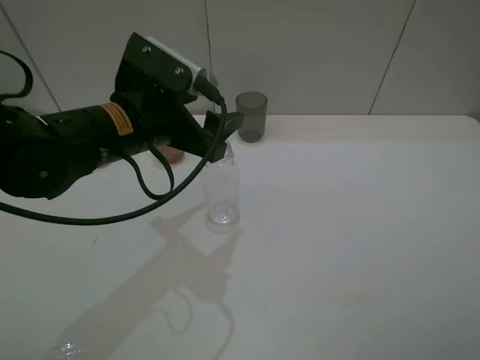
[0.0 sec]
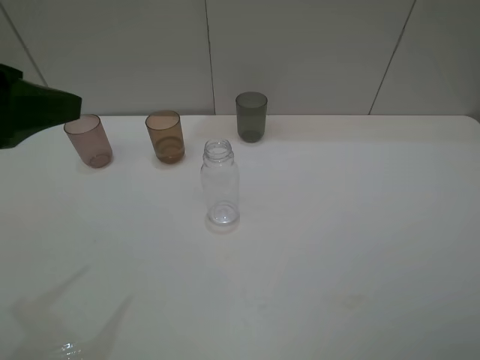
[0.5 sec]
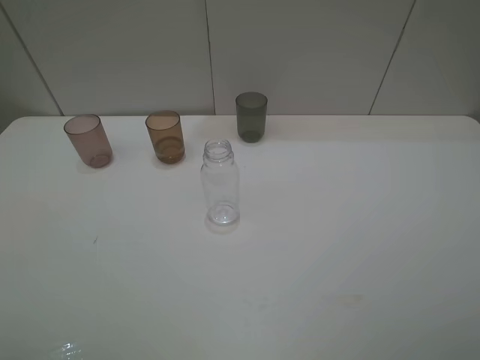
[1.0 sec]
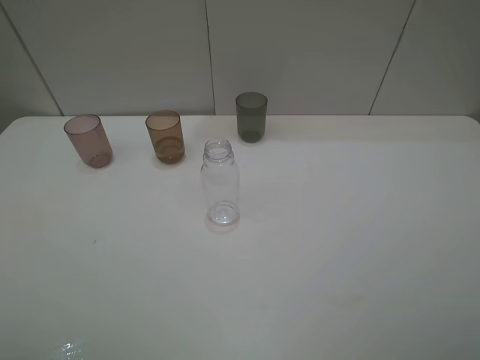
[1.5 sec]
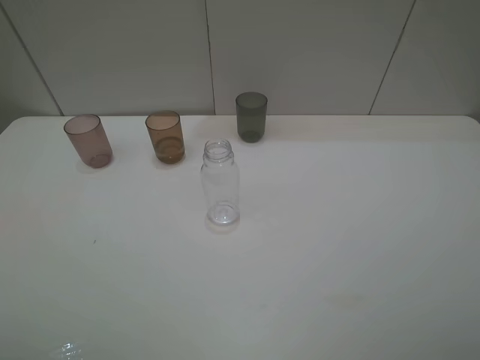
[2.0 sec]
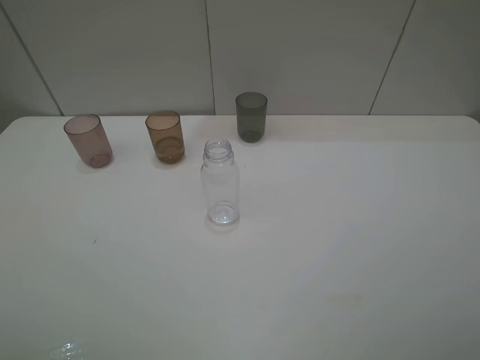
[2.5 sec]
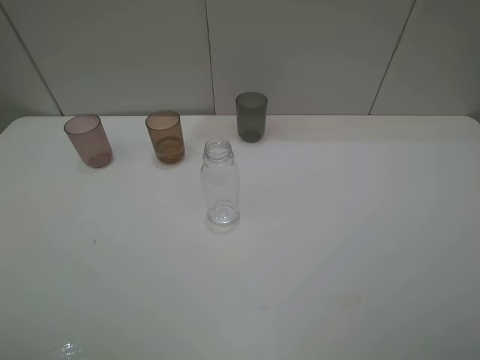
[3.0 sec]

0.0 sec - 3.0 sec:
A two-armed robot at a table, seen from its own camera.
Task of the whole recording: pick up the bottle filled with water and pour water into the middle cup of the three cups.
0.0 sec - 1.5 sec: The left gripper goes roughly 30 cm backward and to the left.

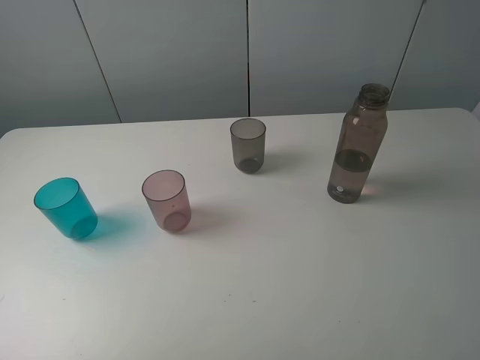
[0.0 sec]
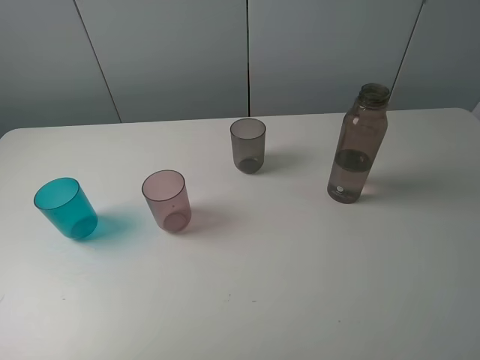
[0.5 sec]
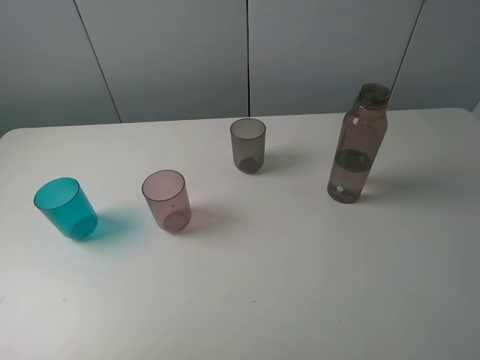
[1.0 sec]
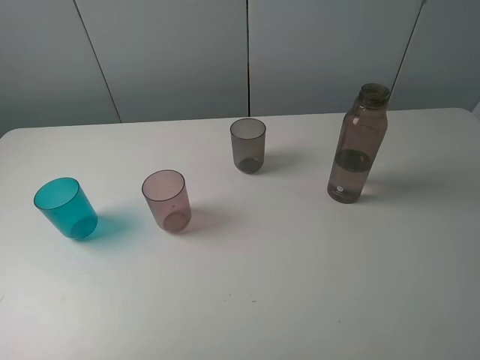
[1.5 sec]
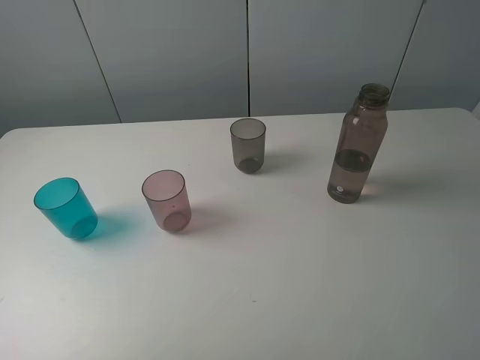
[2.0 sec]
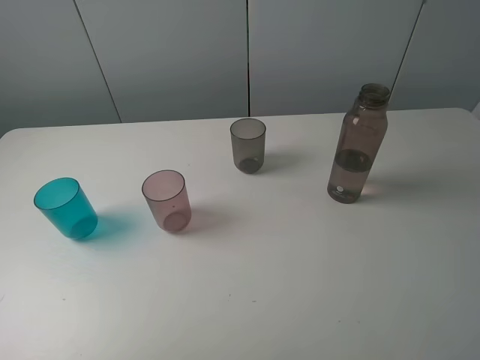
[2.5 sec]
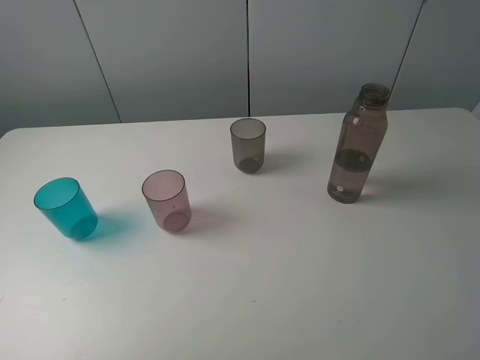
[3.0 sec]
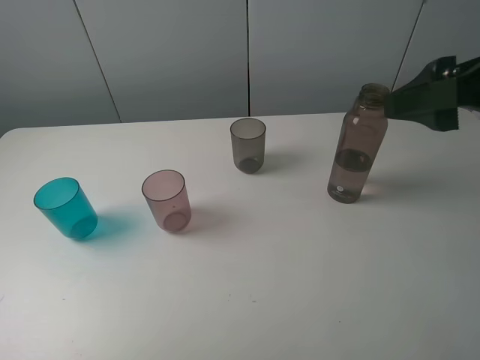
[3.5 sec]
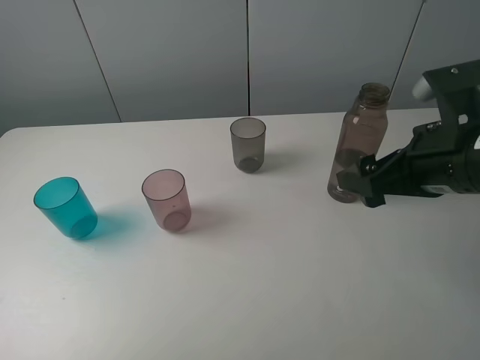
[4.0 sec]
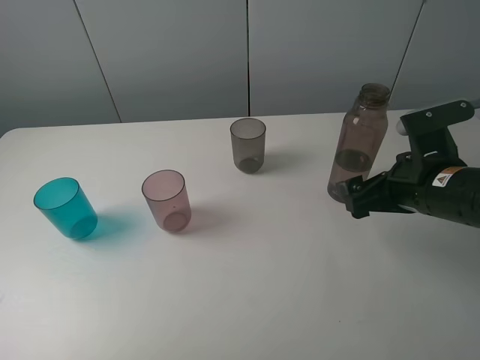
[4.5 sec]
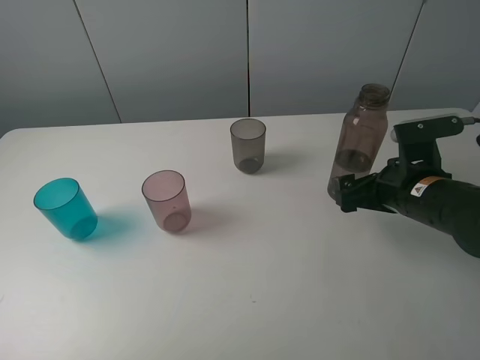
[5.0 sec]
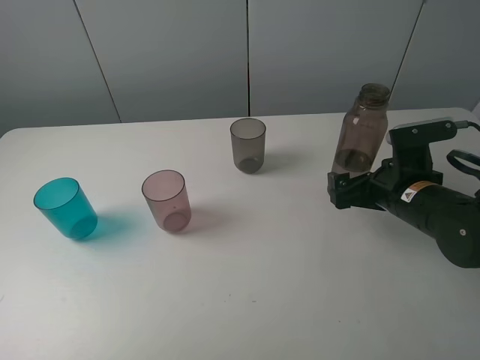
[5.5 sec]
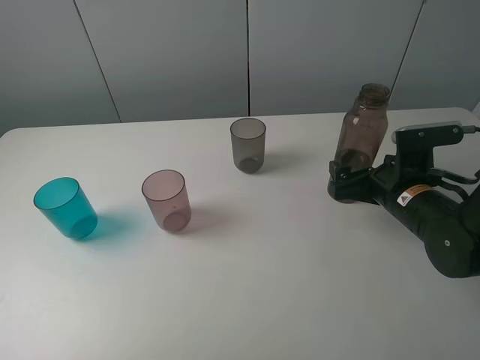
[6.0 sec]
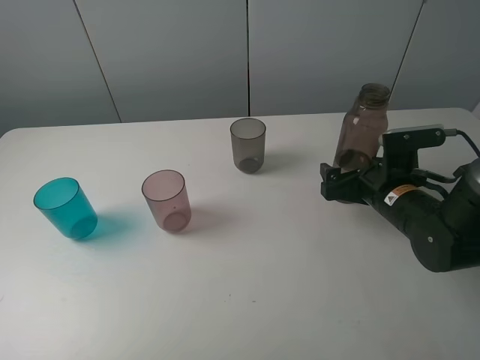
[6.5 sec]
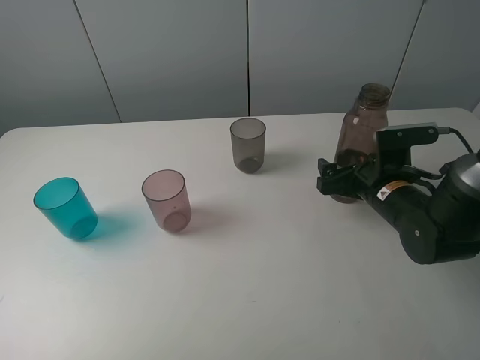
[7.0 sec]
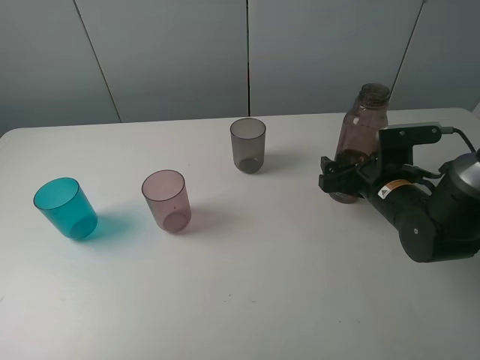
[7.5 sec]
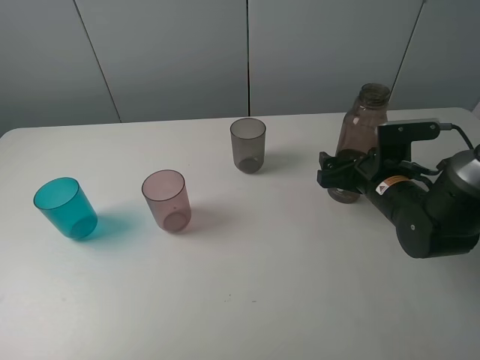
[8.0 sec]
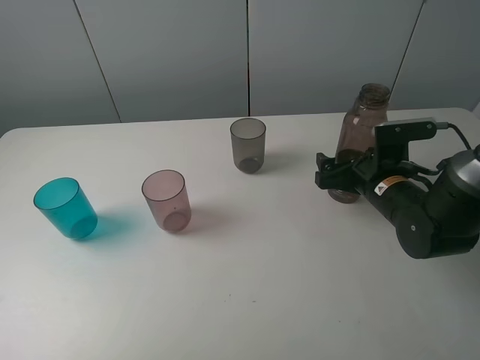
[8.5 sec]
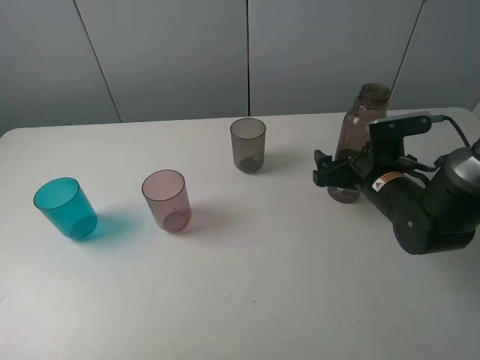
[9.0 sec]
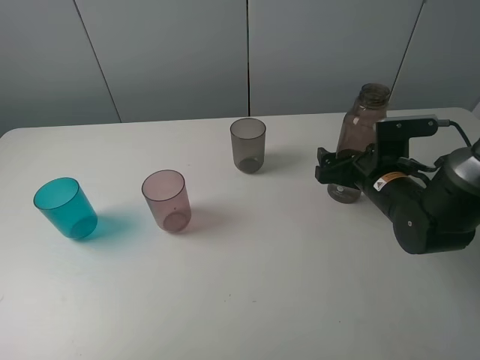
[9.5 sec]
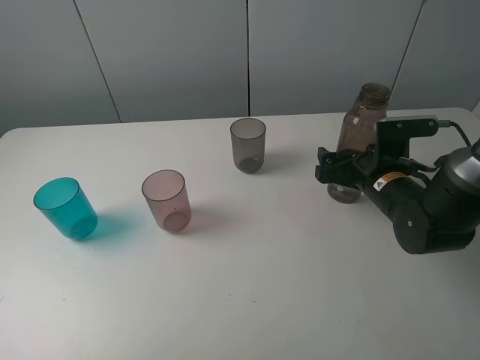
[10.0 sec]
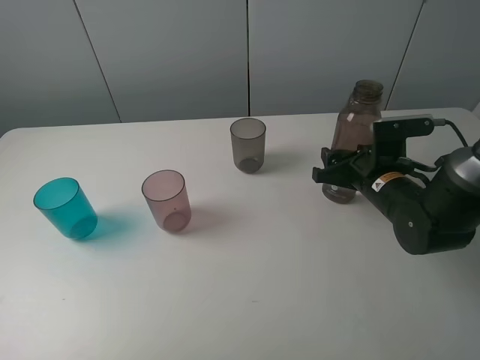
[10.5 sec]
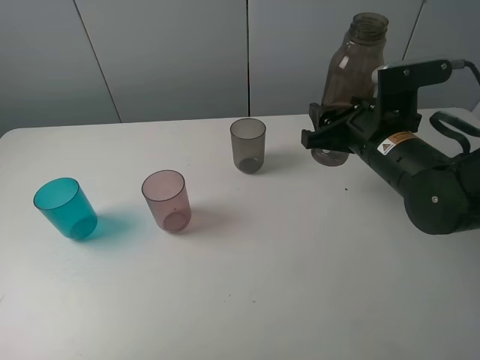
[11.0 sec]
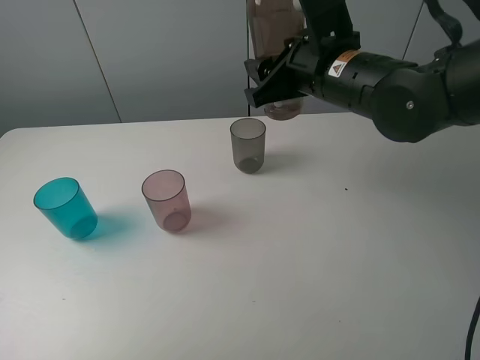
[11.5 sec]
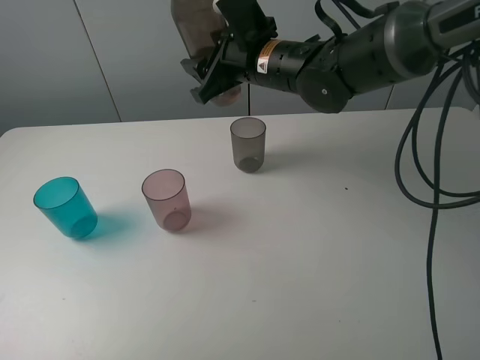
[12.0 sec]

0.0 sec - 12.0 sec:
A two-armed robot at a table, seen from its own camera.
Task of the whole recording: pick up the bottle filled with water and pour water into the middle cup of the three cups.
Step, 0.0 sec - 10.0 sec: Grasp the brown bottle with the right gripper.
0.0 sec - 2.0 sec: Both grippers stay put.
2.0 sec - 4.0 sec: The right gripper heads forward and downward, covering roughly 20 cm.
4.0 sec - 6.0 sec: The right gripper goes roughly 15 cm downward and forward.
6.0 sec - 10.0 sec: There are only small adjustments of the grippers.
10.0 sec - 12.0 sec: The right gripper moves to the left, upward and forward, approximately 25 cm, and closes its fingers.

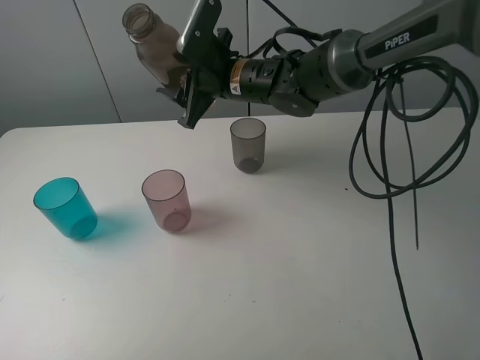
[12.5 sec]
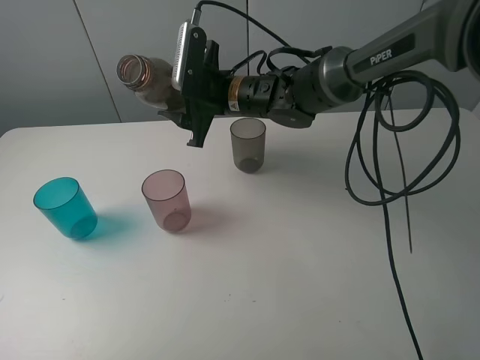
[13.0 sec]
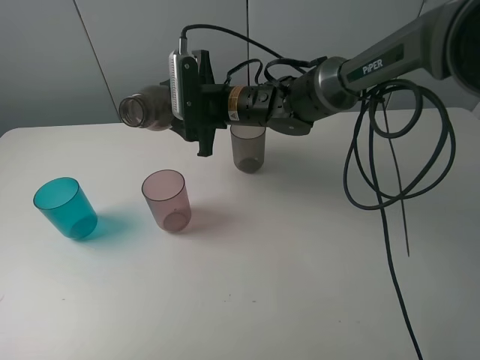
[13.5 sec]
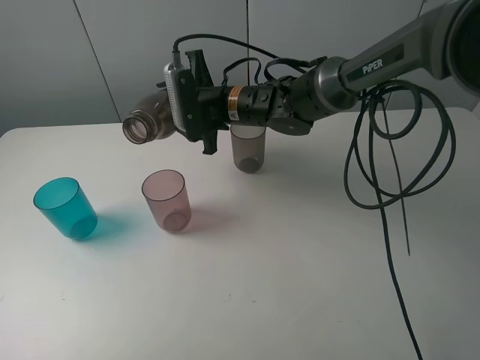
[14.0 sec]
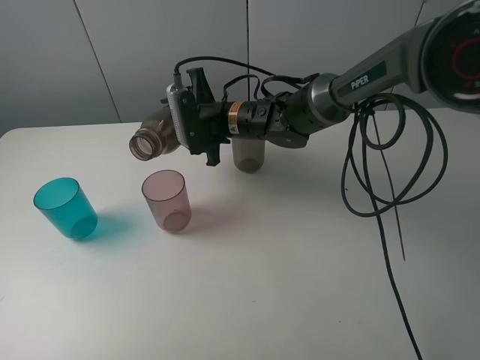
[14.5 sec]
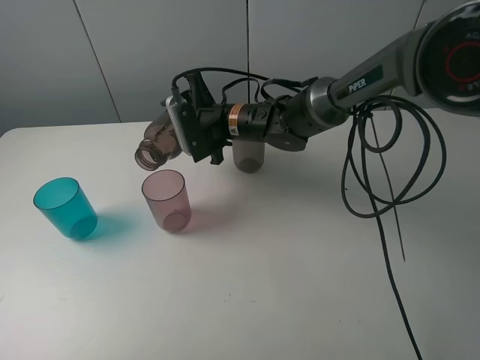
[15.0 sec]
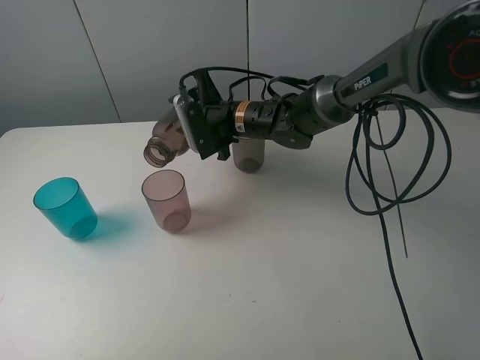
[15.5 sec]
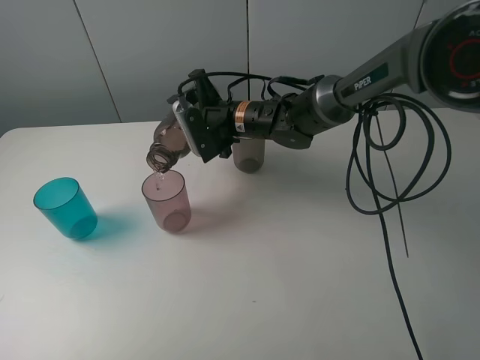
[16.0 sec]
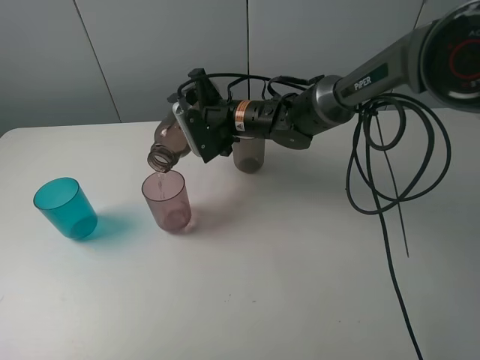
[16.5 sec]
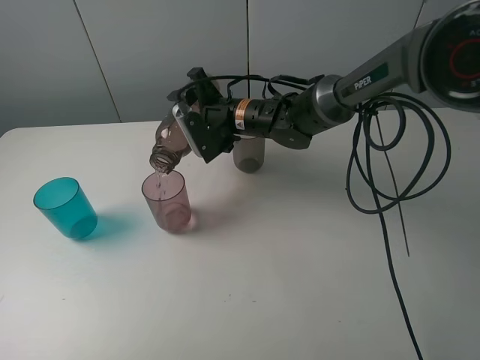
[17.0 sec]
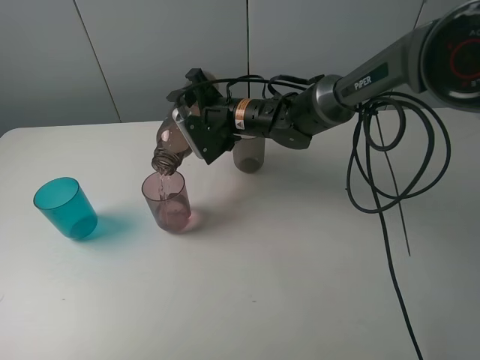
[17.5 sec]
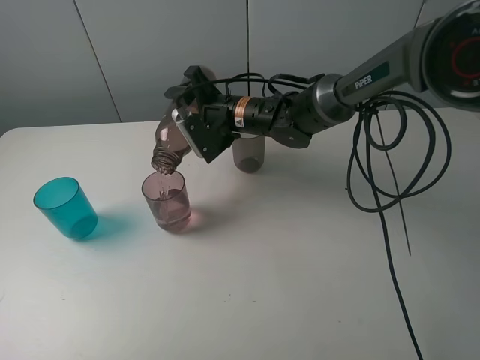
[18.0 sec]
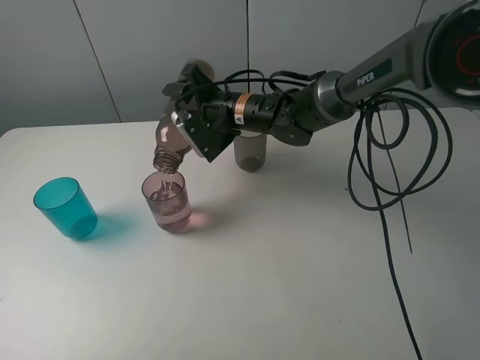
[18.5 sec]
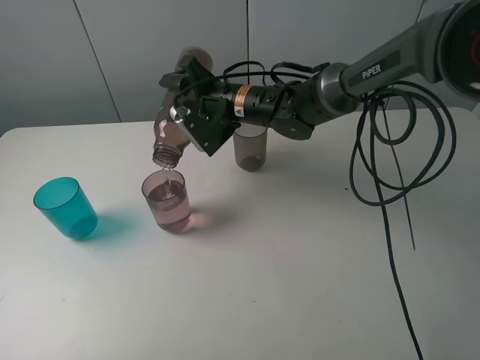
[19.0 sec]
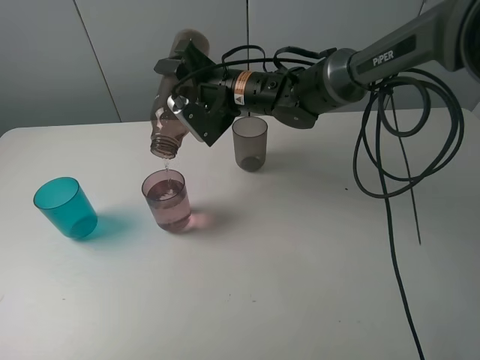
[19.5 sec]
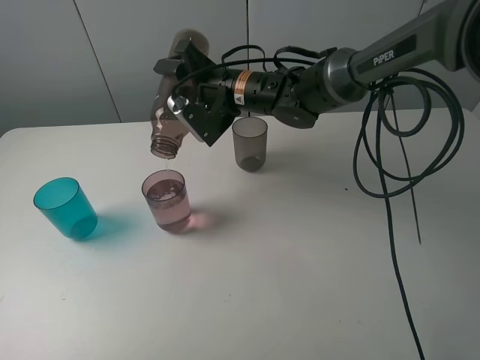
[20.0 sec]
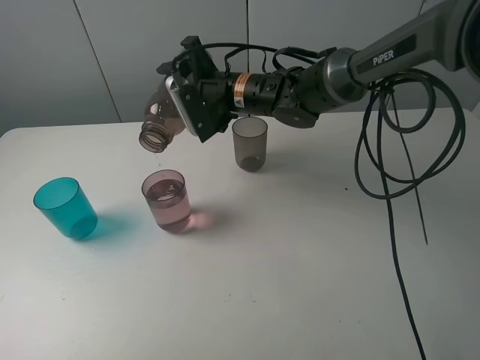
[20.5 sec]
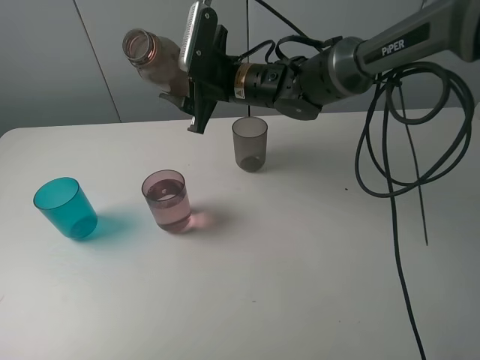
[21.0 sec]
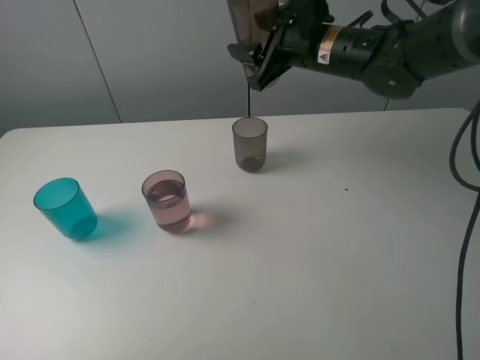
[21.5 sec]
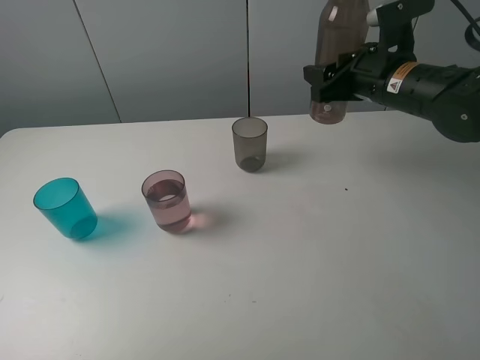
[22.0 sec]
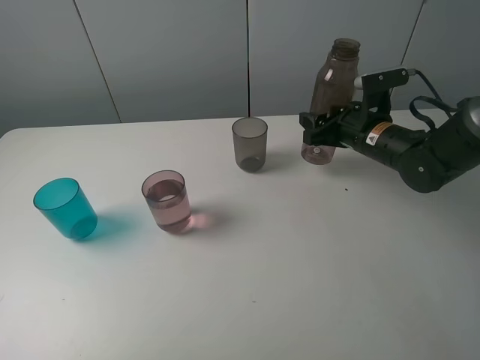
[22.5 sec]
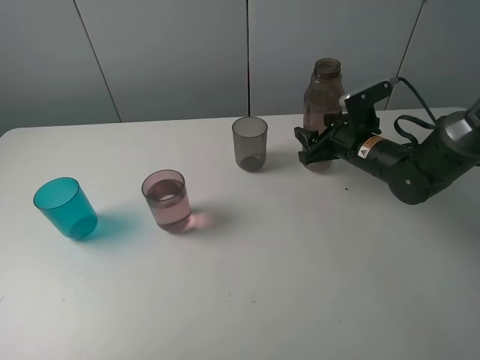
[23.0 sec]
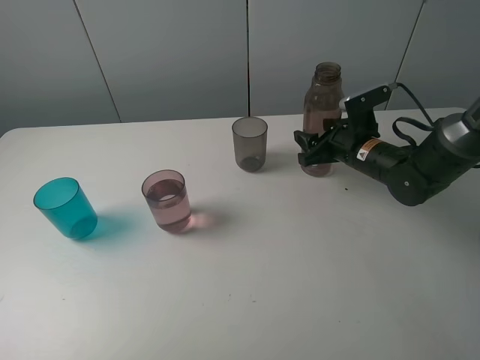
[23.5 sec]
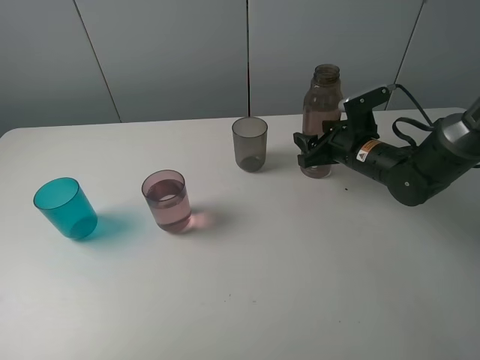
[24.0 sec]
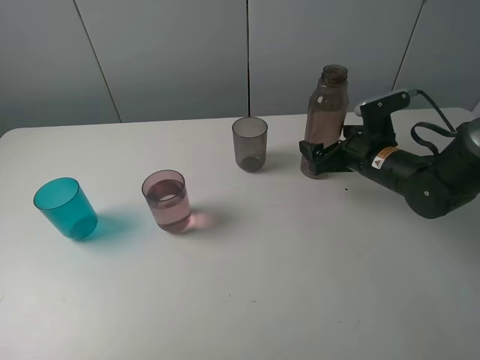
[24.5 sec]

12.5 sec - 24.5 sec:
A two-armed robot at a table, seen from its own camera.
Task of the whole recording: pick up the bottle filled with water and pour water into the middle cup of the three cups.
Step, 12.5 sec - 15.5 sec: Pour water from transparent bottle to red cup with the right gripper.
12.5 sec - 14.5 sec: The right gripper moves downward, roughly 5 cm.
14.5 sec - 16.5 sec: The grippers stay close to where they were, moving slightly.
16.5 sec - 18.5 sec: The grippers move only a little.
18.5 sec - 20.5 sec: The grippers move only a little.
20.5 sec - 22.5 sec: The right gripper shifts some 20 cm to the right.
22.5 sec - 24.5 sec: The right gripper opens up.
